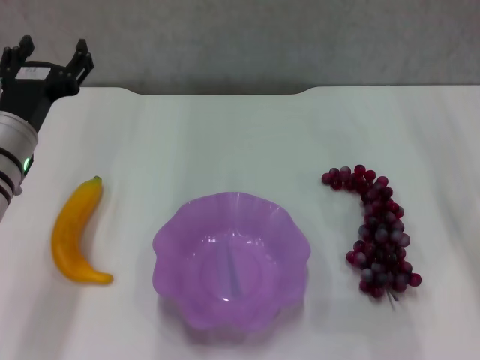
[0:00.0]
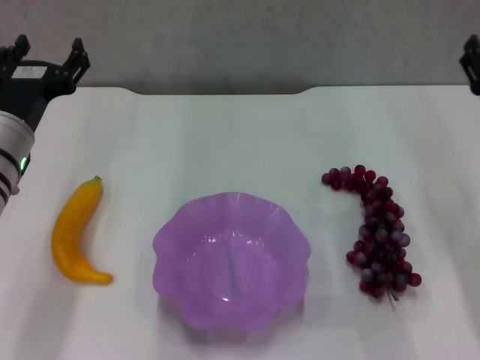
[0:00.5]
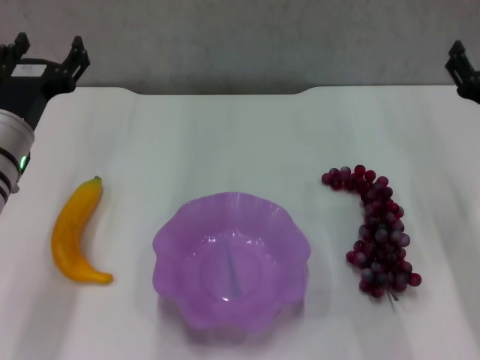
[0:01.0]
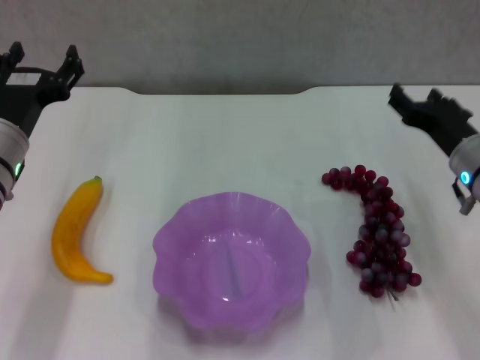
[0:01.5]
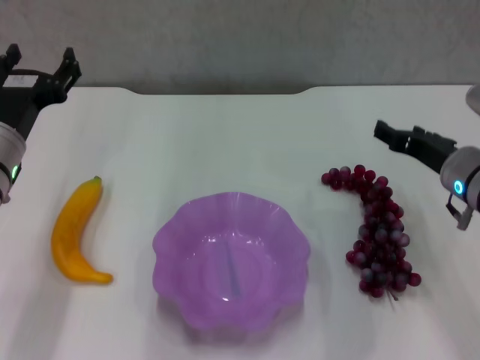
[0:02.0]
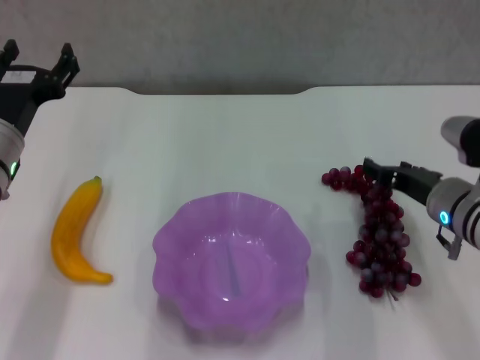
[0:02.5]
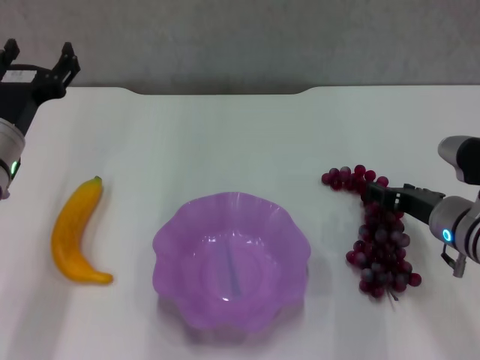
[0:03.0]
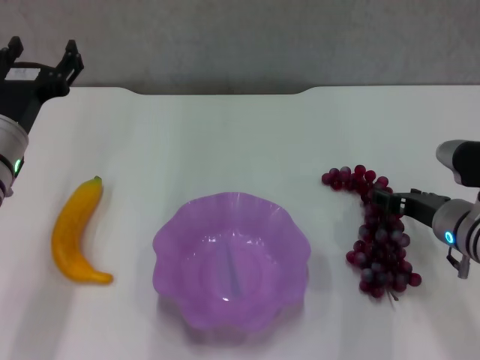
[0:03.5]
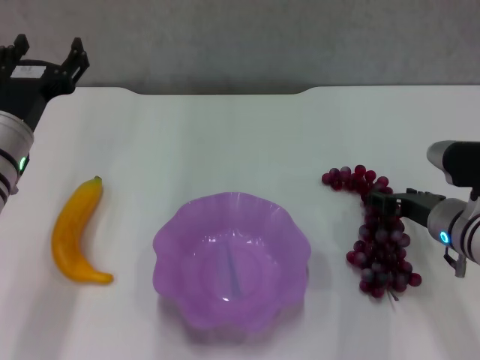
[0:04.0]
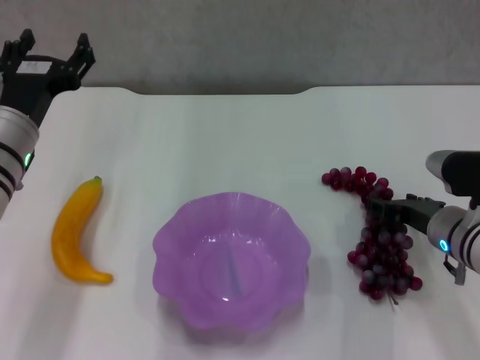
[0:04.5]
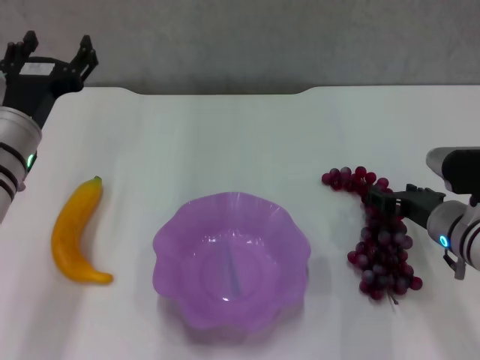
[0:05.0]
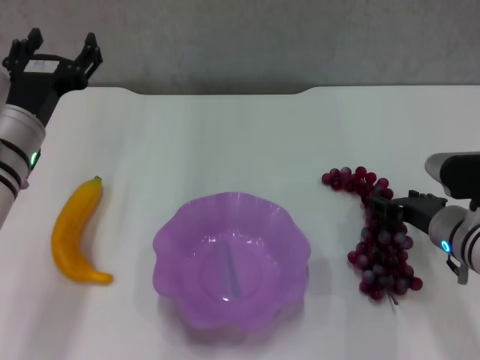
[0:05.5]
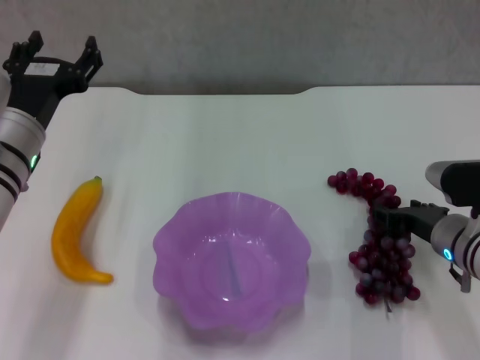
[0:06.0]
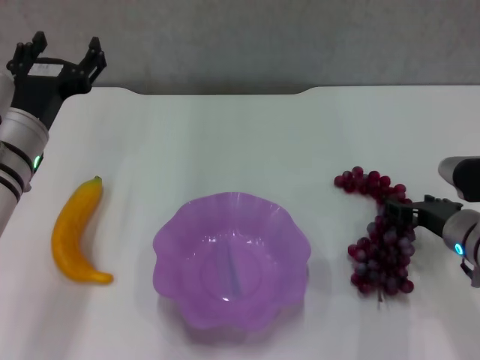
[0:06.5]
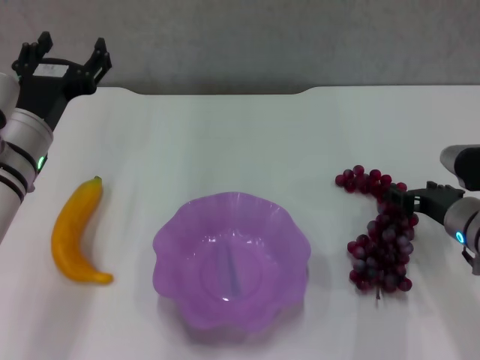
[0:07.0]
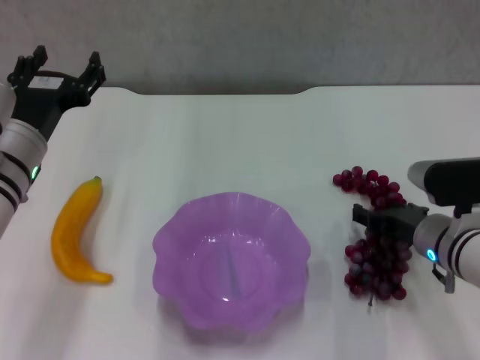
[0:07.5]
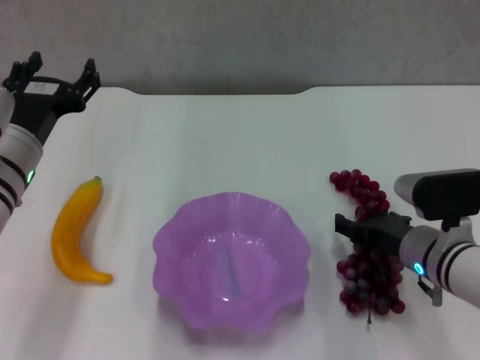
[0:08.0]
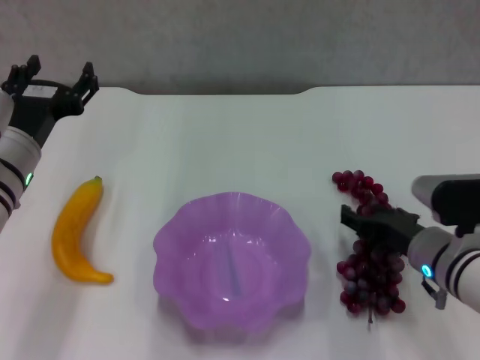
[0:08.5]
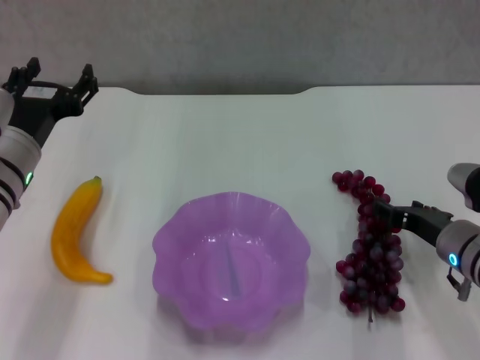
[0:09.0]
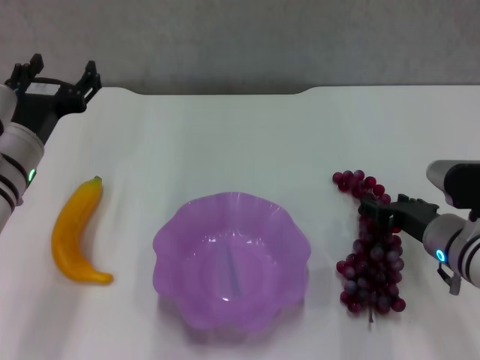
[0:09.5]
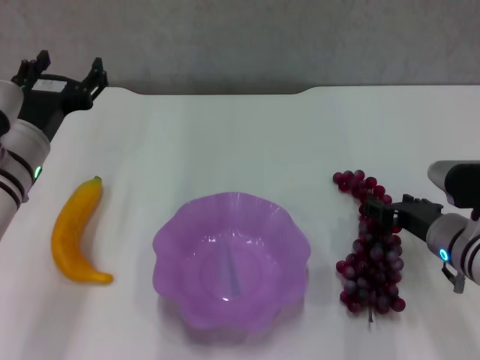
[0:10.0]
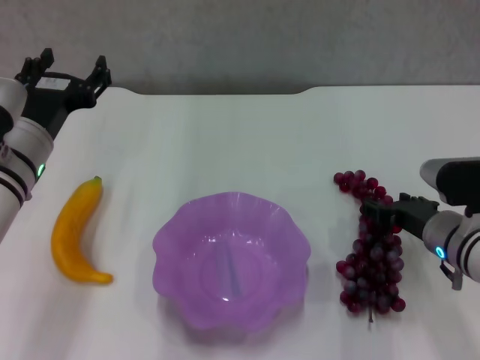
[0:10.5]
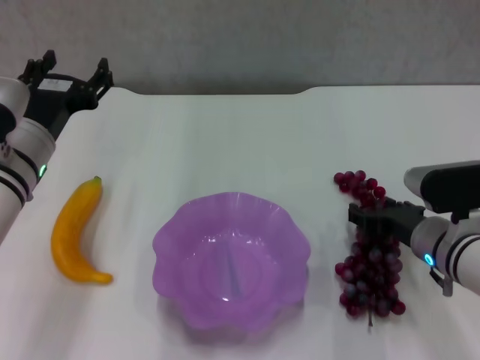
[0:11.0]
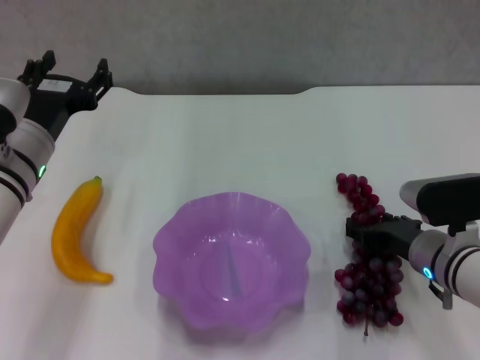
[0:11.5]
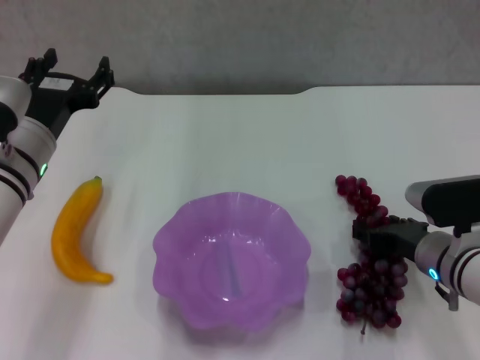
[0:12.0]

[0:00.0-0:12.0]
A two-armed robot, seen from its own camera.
0:00.0 to 0:02.0: The right gripper is displaced to the left by approximately 5 cm.
0:02.0 to 0:04.0: The right gripper changes place by approximately 5 cm.
0:04.0 to 0:12.0: The grippers move only a little.

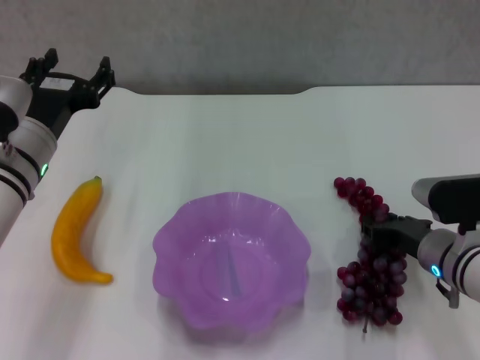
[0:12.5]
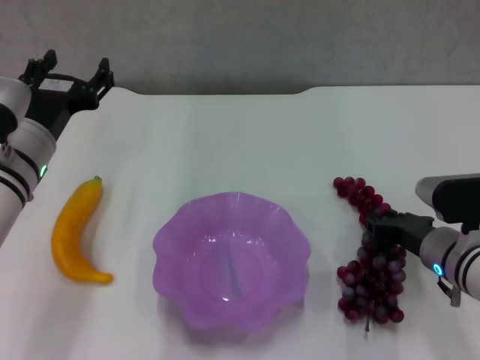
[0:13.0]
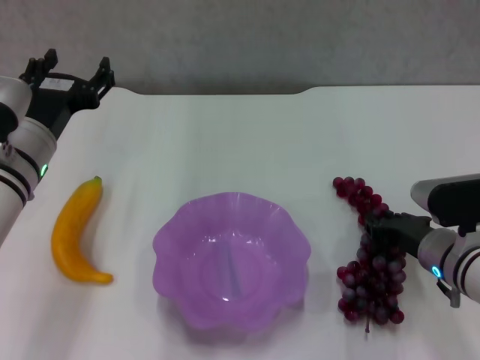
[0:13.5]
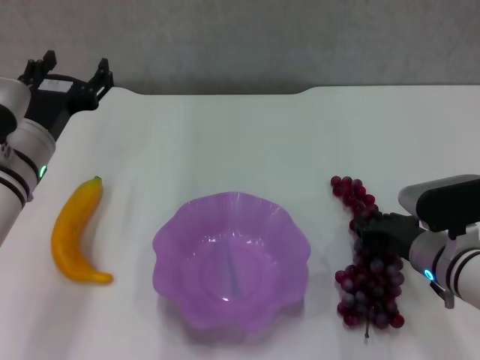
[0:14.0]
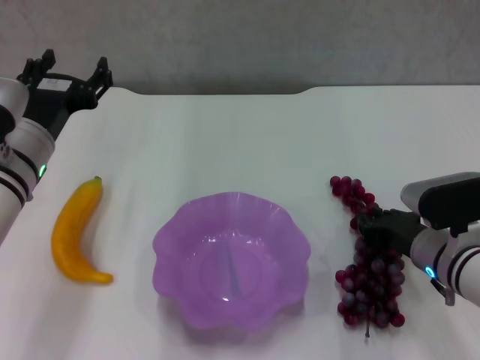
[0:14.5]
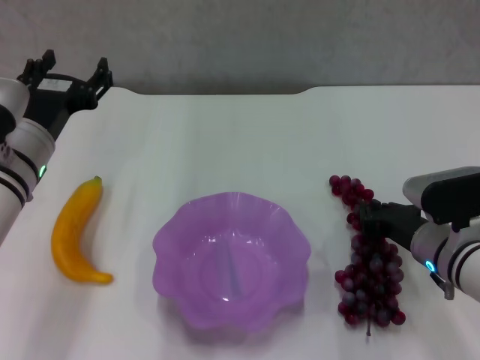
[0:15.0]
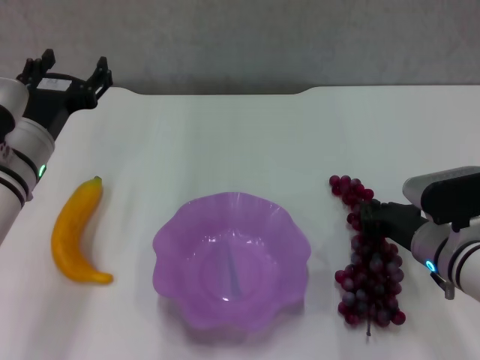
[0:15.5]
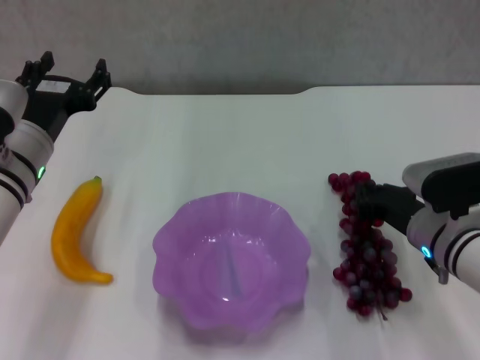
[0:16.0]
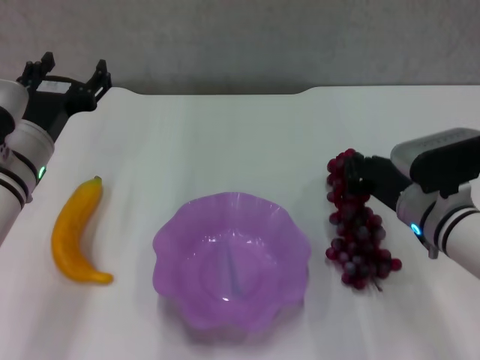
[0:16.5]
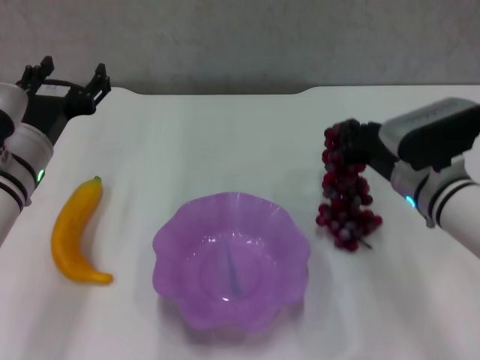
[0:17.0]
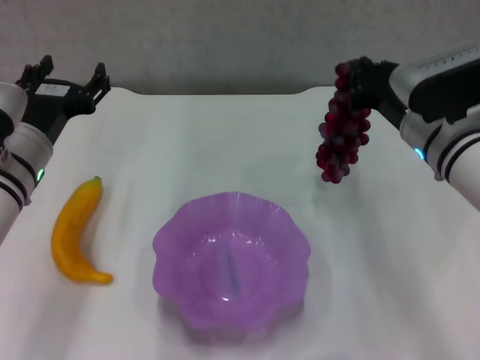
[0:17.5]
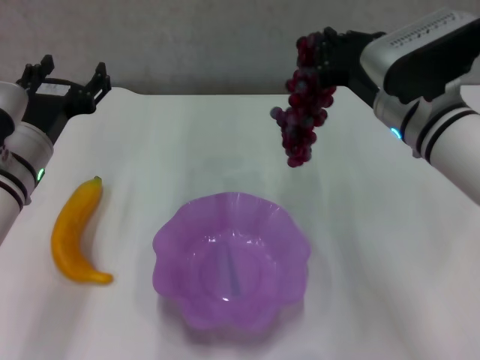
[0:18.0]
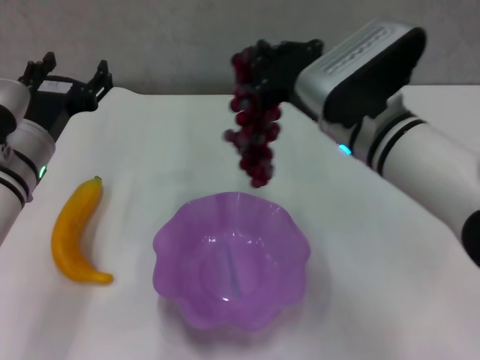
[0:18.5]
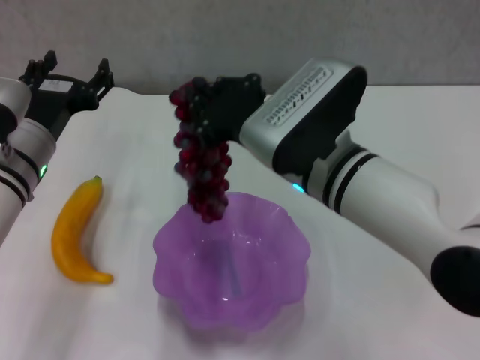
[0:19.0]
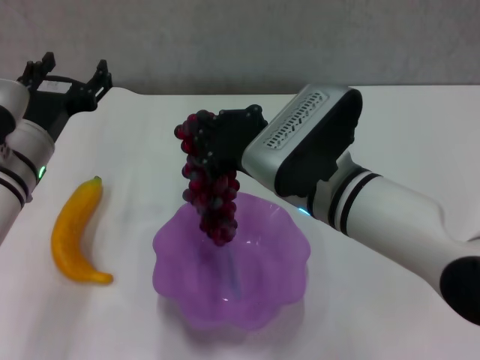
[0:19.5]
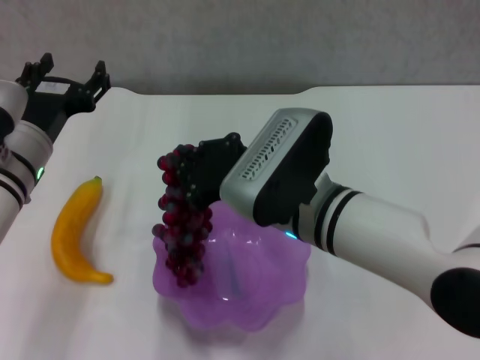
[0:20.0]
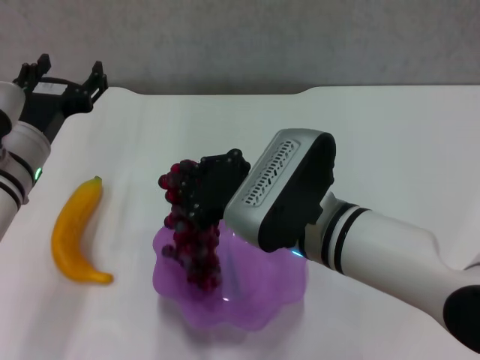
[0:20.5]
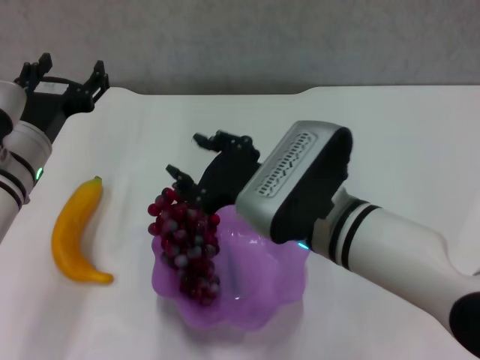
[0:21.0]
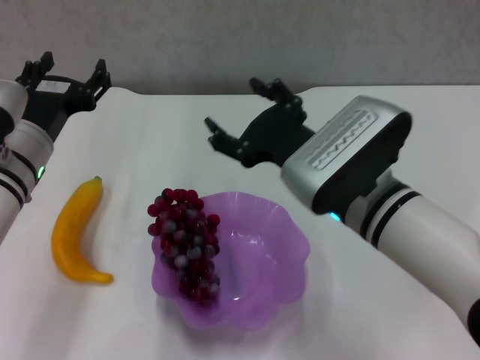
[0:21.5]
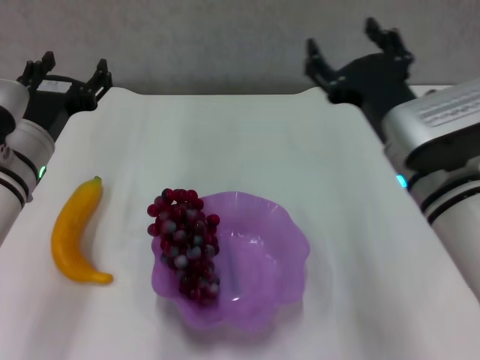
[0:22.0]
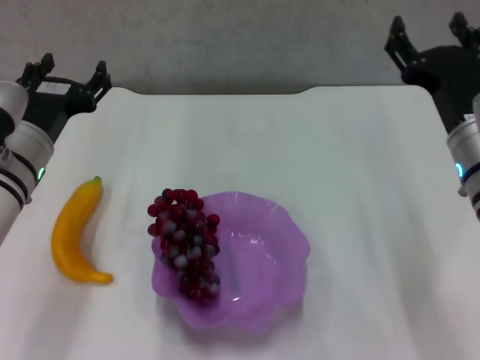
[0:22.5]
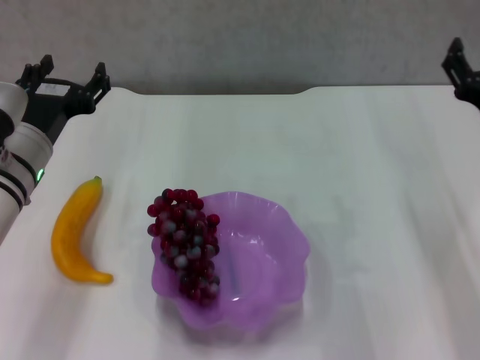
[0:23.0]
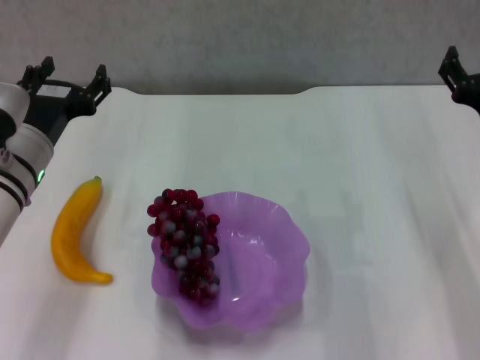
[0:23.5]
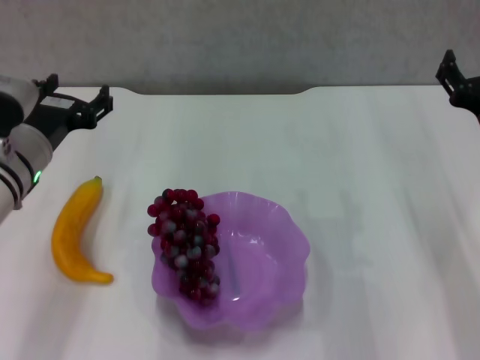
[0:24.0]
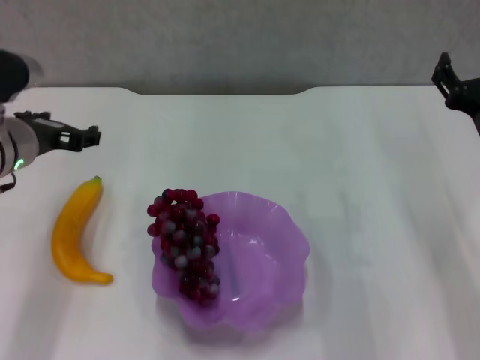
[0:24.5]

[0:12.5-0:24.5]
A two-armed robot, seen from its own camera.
Step, 0:12.5 to 0:15.5: Grasp the grape with right gripper.
Step, 0:16.0 to 0:21.0: Place the grape in the purple plate with right gripper.
0:12.5 to 0:14.5: The right gripper closes its fingers.
0:14.5 to 0:16.5: The grippers make only small movements.
0:16.5 to 0:18.5: The right gripper is displaced upward and to the left by about 15 cm.
0:18.5 to 0:20.5: The right gripper heads backward, covering roughly 5 cm.
0:20.5 to 0:22.5: The right gripper heads to the right, covering approximately 15 cm, and opens.
0:22.5 to 0:24.5: The right gripper moves about 5 cm.

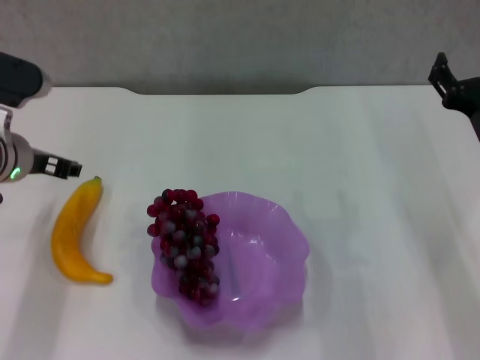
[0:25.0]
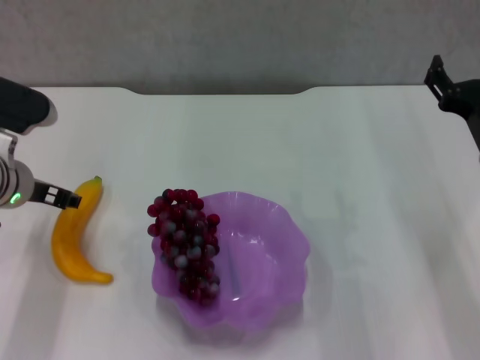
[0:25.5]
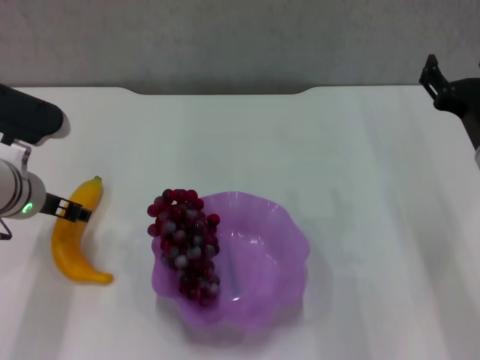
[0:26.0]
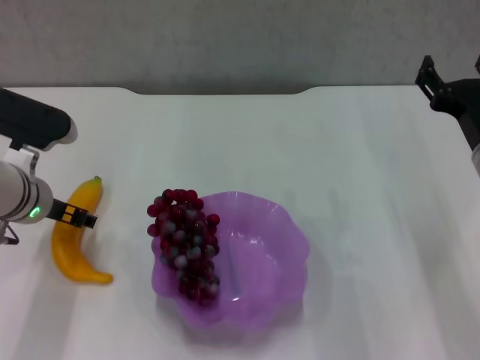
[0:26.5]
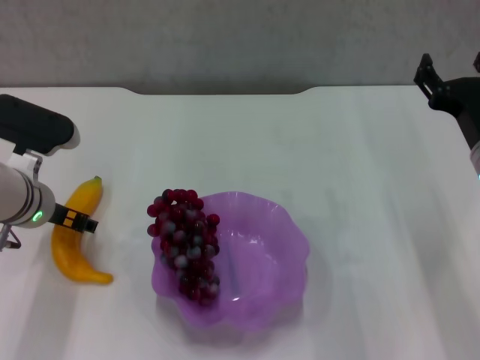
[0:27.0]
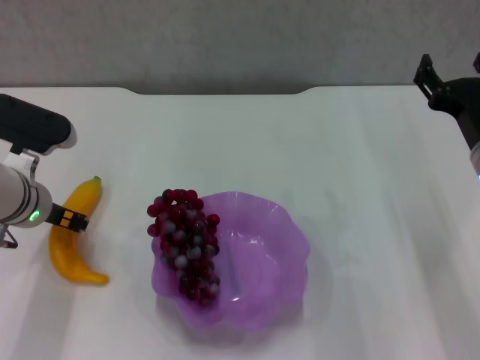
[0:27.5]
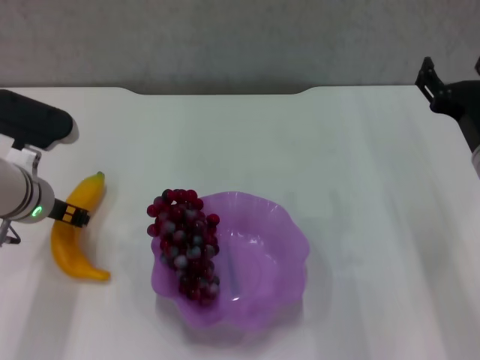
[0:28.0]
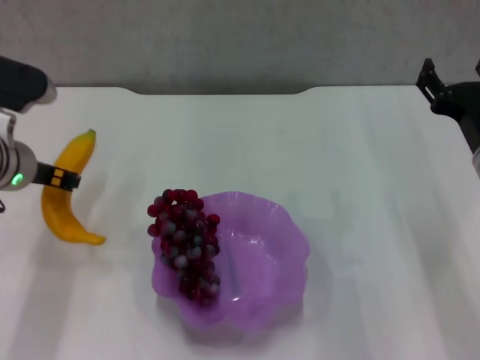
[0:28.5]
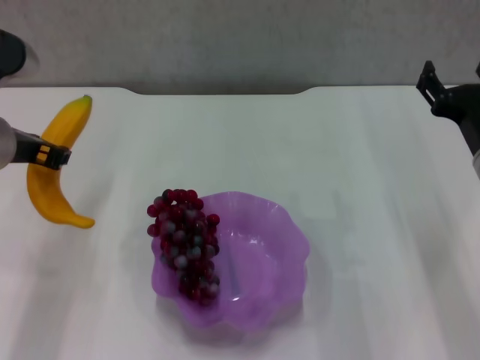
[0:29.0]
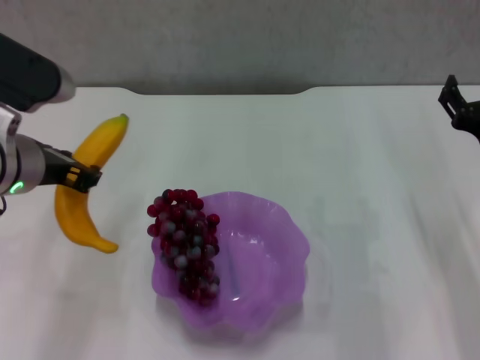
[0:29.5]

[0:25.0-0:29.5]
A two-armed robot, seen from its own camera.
Step, 0:25.0 to 0:27.5: Grasp the banana with left gripper.
0:25.0 to 0:27.0: The left gripper shifts by approximately 5 cm.
0:27.0 to 0:29.5: The left gripper shifts roughly 10 cm upward and backward, and closes its fingers.
